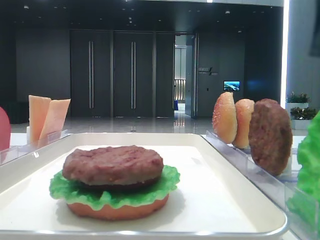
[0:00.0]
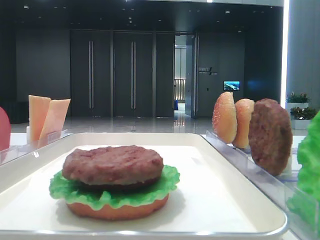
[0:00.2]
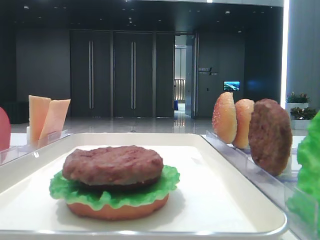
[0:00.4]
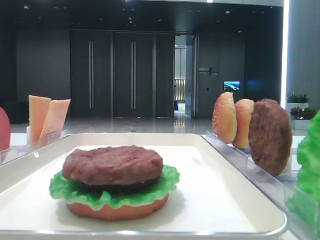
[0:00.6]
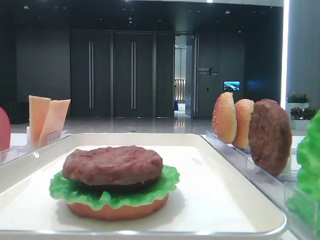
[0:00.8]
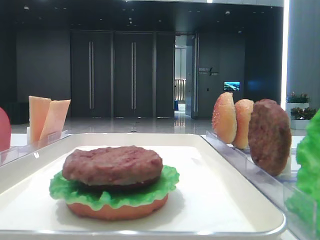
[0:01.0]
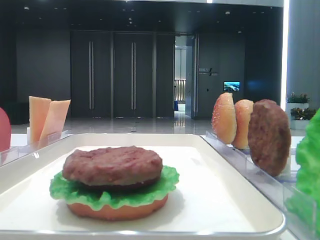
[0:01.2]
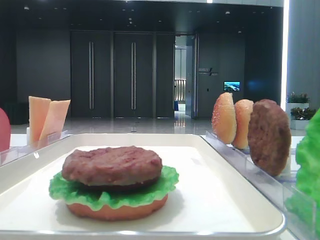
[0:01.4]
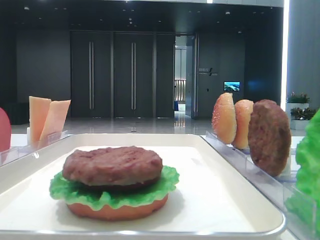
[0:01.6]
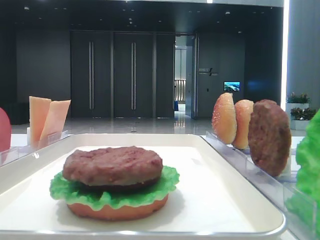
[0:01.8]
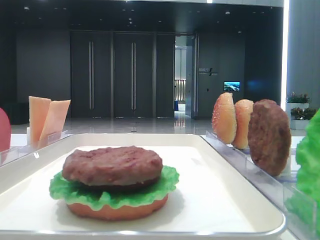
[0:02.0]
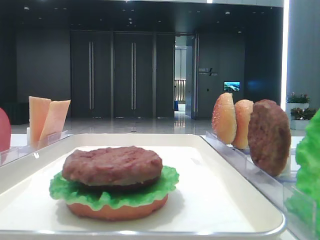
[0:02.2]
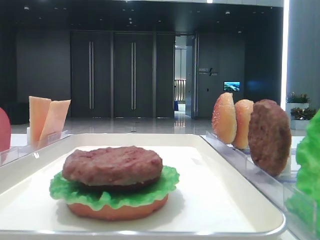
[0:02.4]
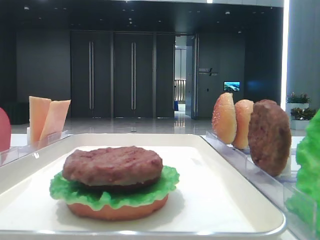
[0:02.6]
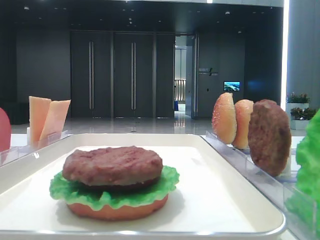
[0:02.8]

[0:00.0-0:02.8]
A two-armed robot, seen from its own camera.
0:00.0 to 0:01.4: The right gripper heads backward, covering about 20 cm.

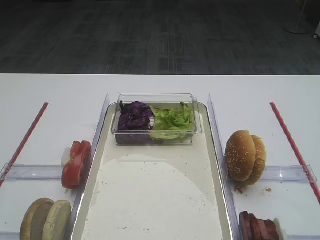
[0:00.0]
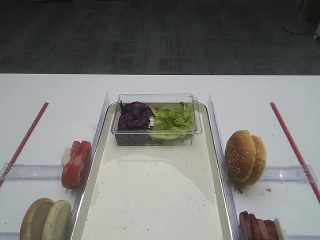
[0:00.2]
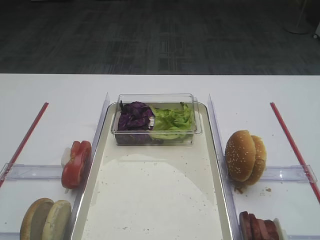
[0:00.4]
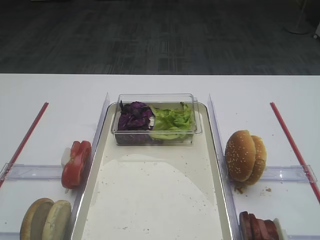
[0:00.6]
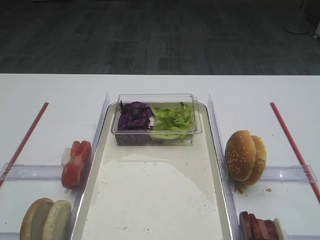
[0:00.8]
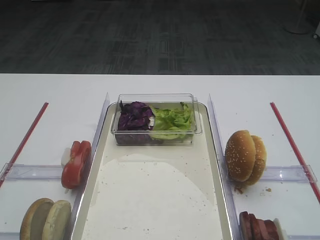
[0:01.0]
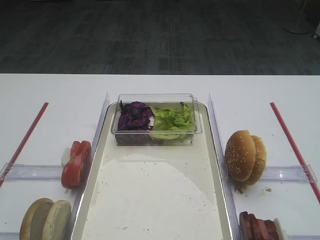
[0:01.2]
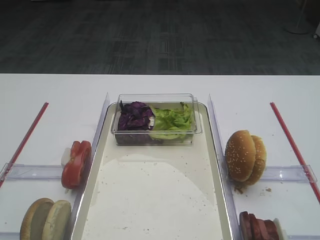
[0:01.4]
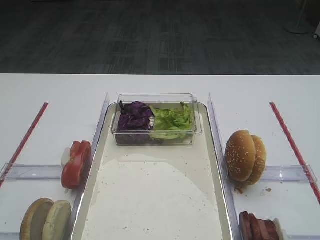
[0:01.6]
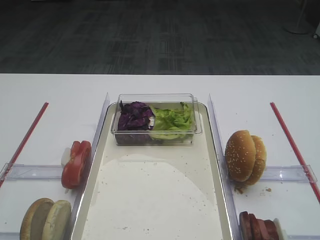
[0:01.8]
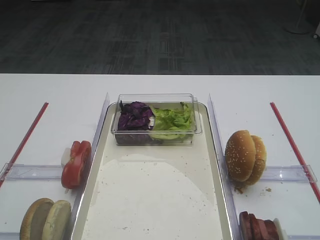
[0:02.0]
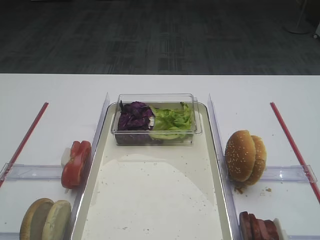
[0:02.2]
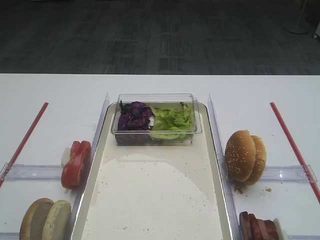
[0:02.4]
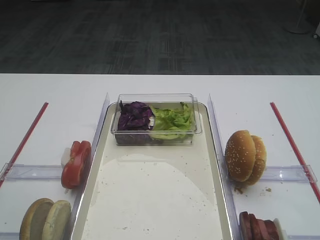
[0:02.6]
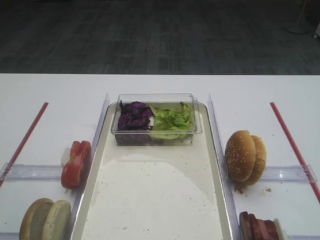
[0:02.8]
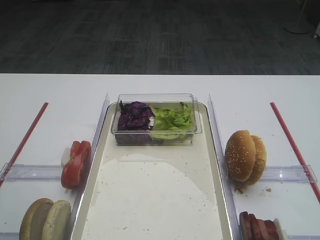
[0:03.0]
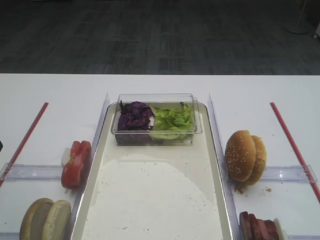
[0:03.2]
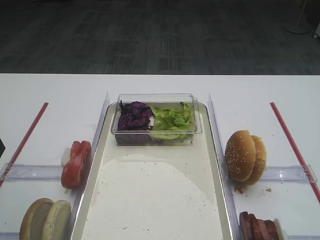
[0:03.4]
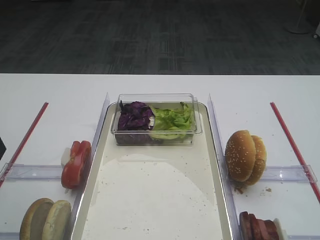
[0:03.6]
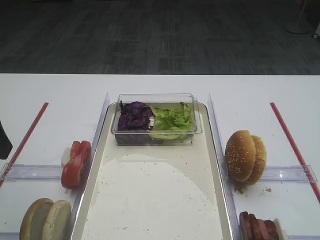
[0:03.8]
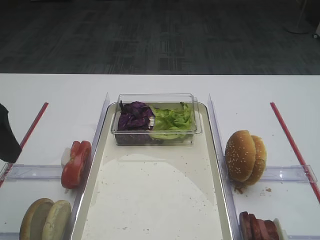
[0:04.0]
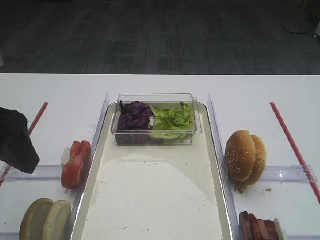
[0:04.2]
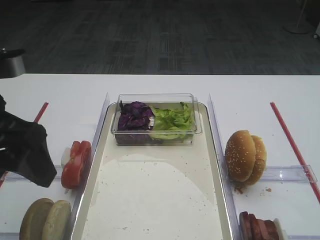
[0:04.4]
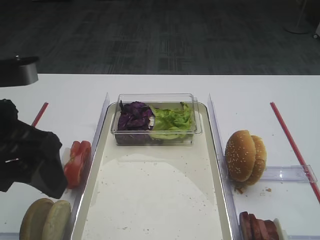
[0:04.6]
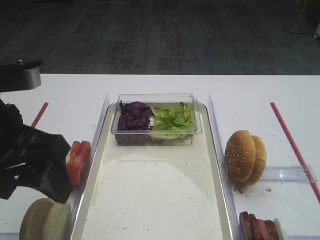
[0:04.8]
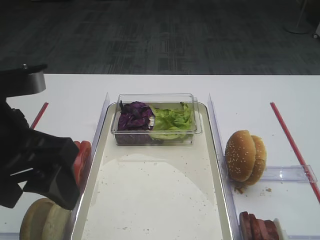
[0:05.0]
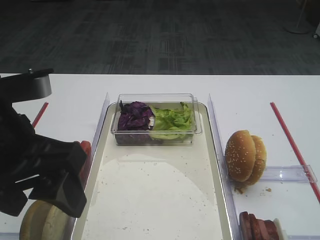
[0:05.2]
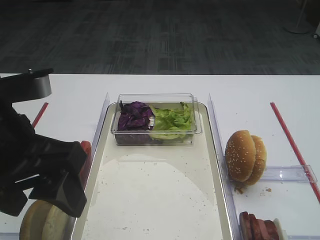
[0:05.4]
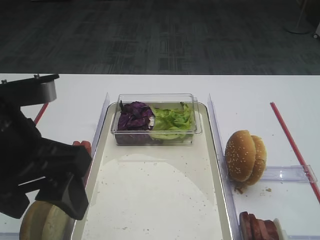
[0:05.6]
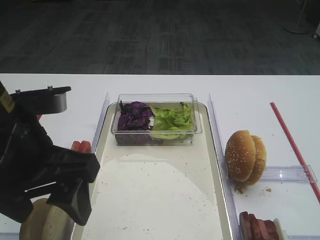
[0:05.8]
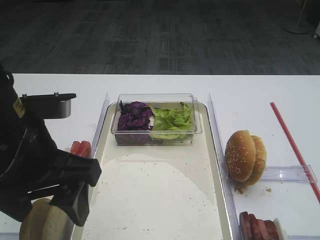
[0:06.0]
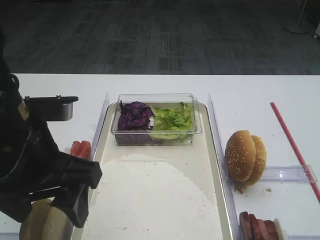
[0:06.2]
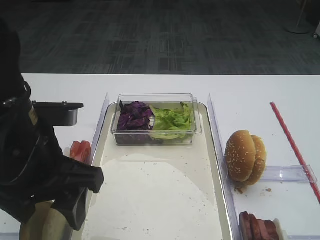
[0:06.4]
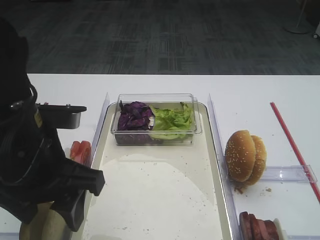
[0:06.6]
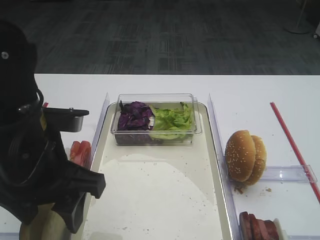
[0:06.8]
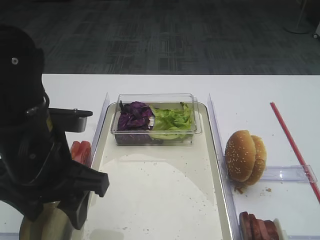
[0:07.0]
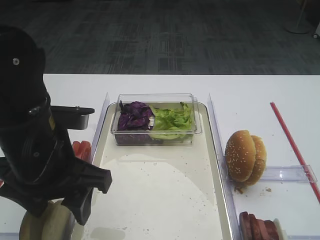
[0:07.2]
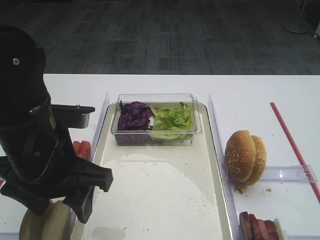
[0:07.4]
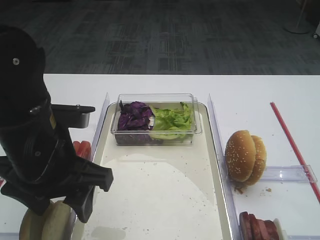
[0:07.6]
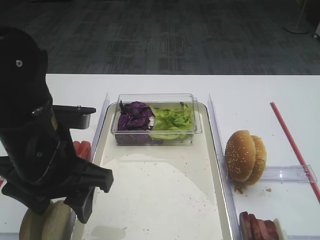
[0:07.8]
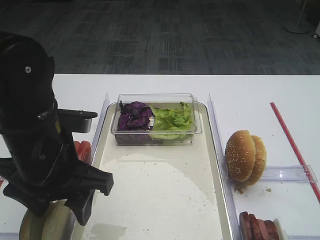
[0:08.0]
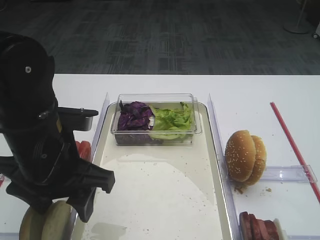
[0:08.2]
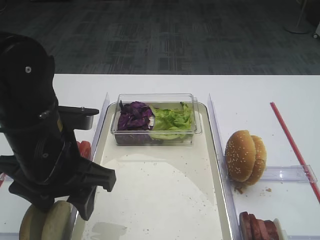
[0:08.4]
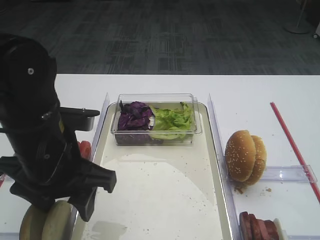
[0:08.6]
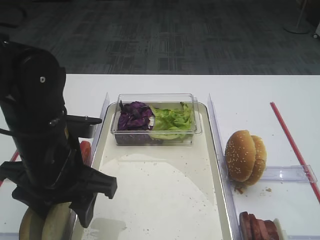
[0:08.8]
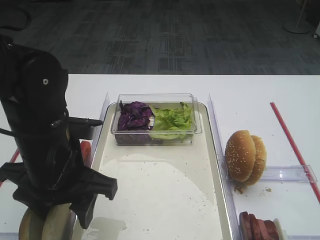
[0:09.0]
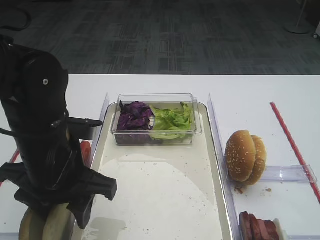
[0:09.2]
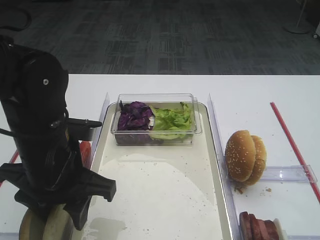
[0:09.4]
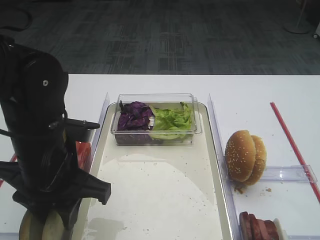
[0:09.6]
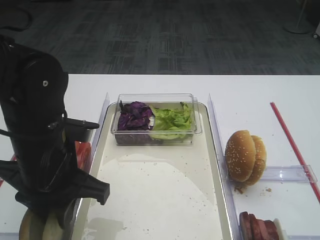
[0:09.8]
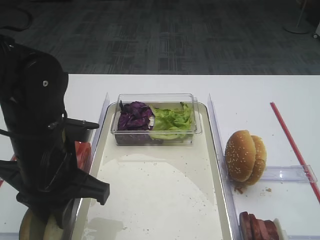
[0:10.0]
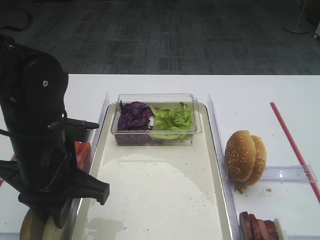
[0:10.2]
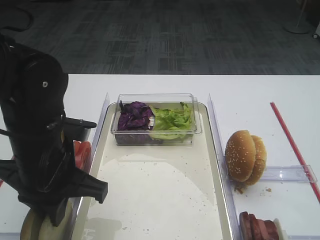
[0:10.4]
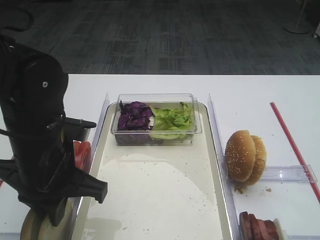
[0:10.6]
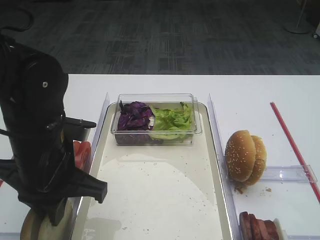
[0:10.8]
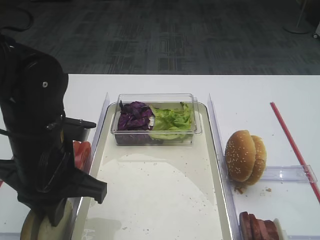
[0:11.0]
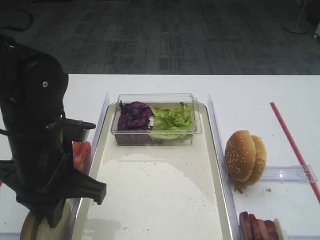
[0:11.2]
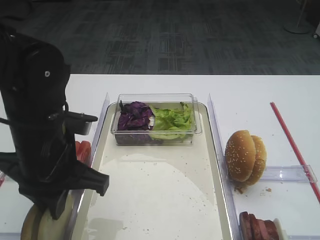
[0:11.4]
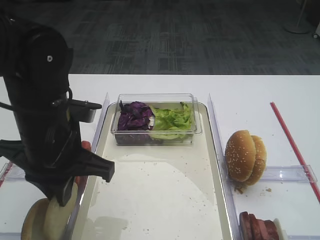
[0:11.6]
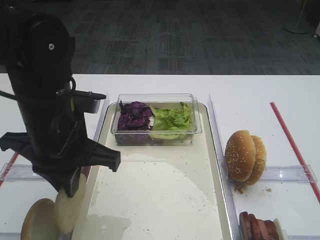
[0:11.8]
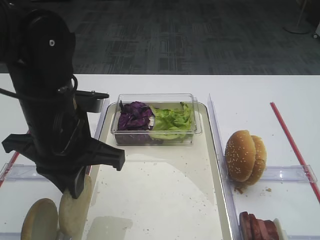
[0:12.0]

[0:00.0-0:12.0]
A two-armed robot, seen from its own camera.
Step, 0:00.0 to 0:11.8: Pick up the bread slice with the left gripper.
0:03.0 to 0:04.4: The left gripper shifts approximately 5 cm to the right.
0:04.4 to 0:06.0: The left gripper travels to the right by roughly 5 cm.
0:06.0 to 0:07.6: The grippers move only a little.
0:07.6 to 0:09.0: The grippers move only a little.
0:09.0 to 0:10.4: The left gripper closes its fingers.
0:10.4 to 0:12.0: The grippers stay close to where they were, moving slightly.

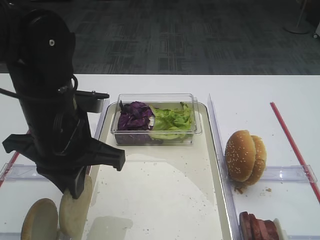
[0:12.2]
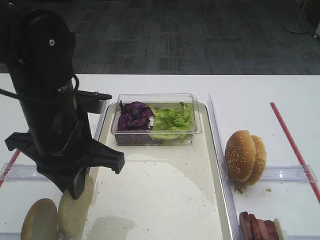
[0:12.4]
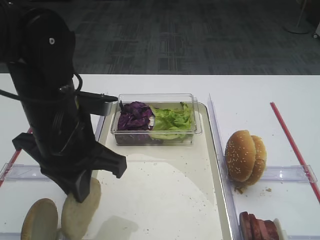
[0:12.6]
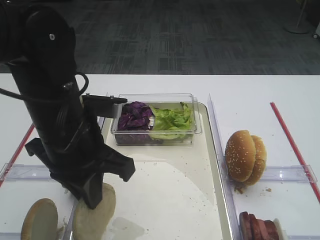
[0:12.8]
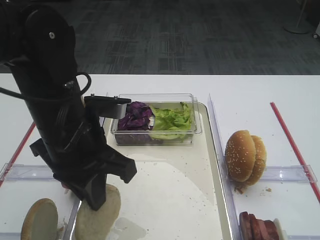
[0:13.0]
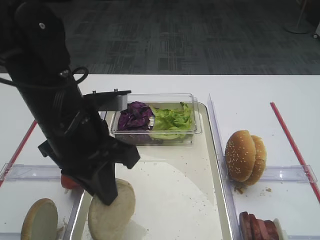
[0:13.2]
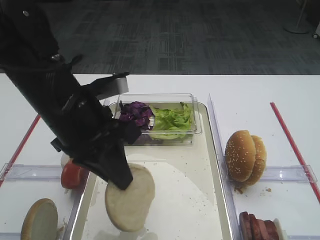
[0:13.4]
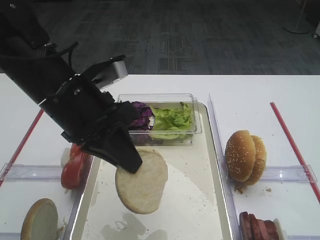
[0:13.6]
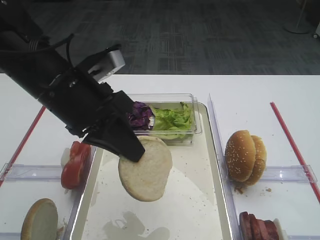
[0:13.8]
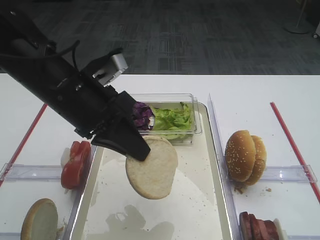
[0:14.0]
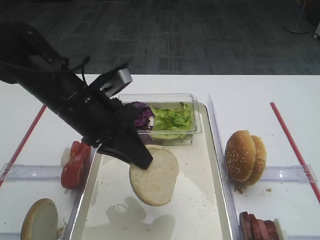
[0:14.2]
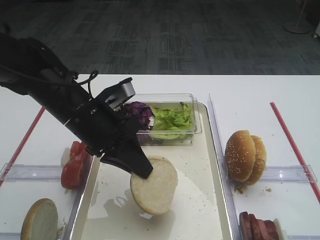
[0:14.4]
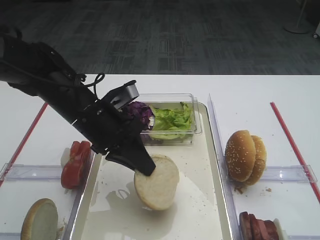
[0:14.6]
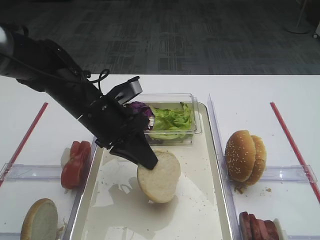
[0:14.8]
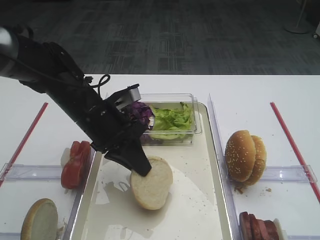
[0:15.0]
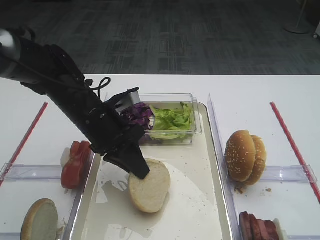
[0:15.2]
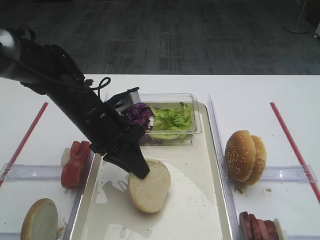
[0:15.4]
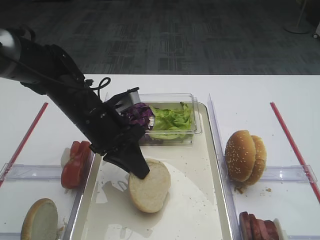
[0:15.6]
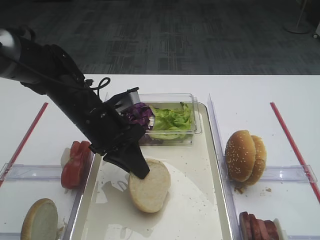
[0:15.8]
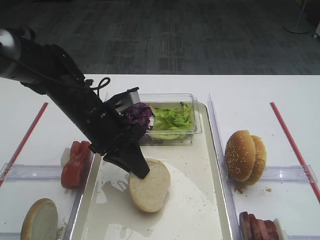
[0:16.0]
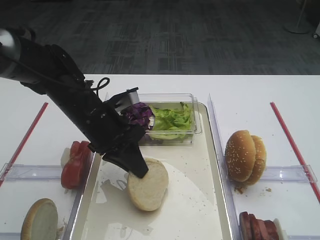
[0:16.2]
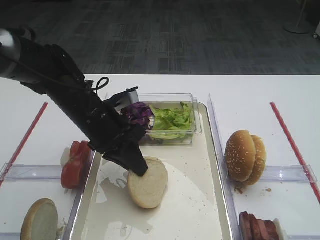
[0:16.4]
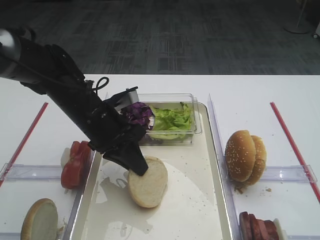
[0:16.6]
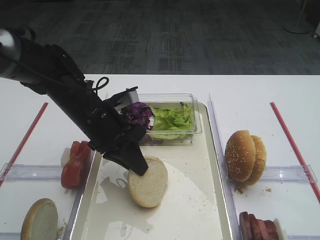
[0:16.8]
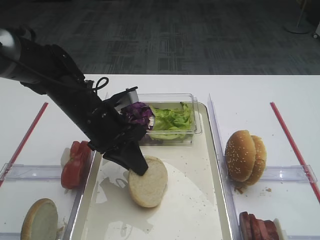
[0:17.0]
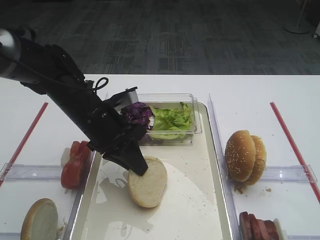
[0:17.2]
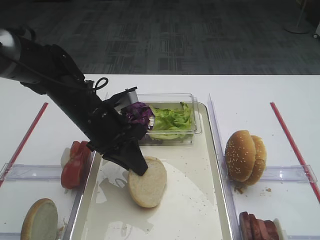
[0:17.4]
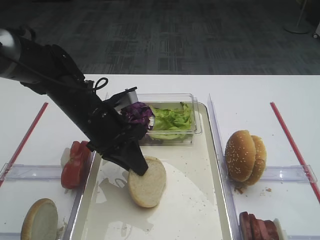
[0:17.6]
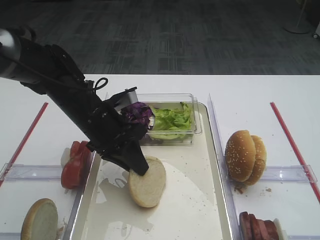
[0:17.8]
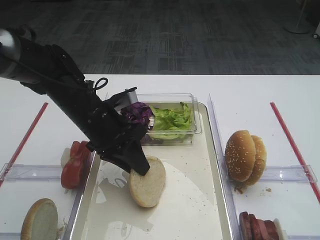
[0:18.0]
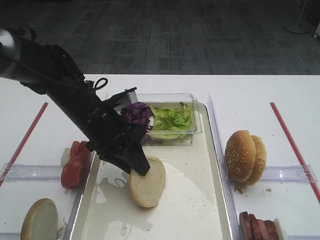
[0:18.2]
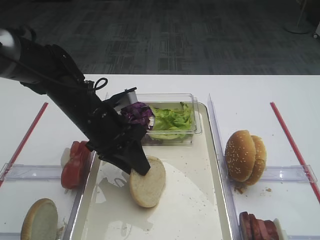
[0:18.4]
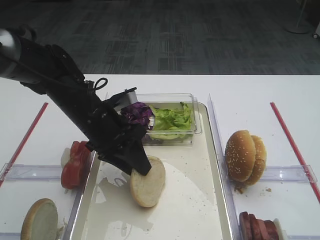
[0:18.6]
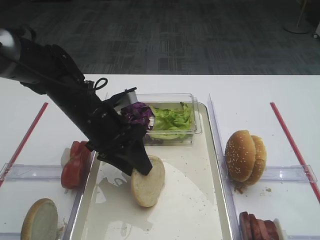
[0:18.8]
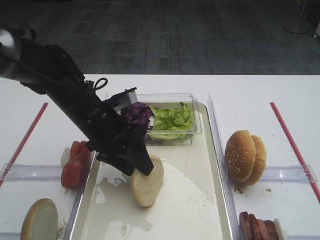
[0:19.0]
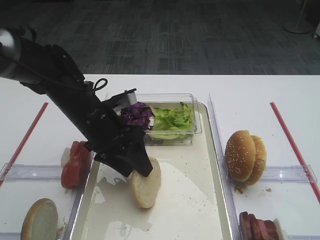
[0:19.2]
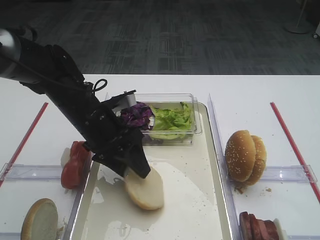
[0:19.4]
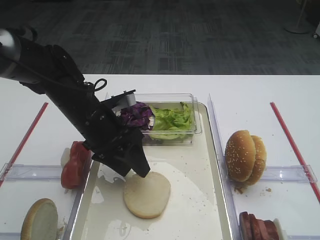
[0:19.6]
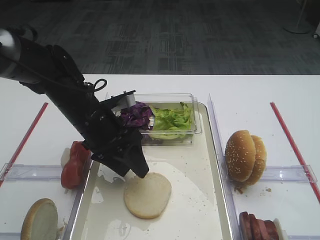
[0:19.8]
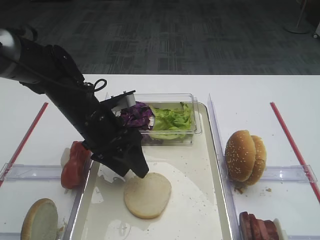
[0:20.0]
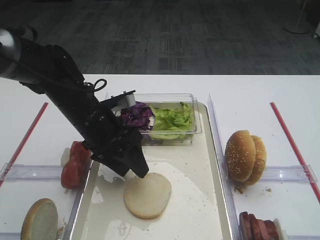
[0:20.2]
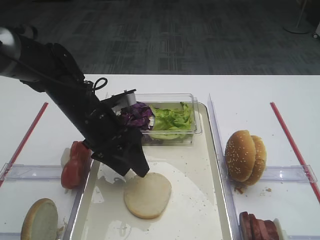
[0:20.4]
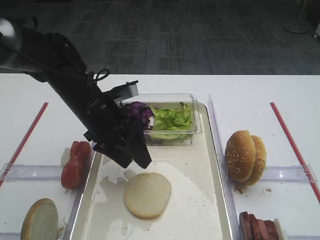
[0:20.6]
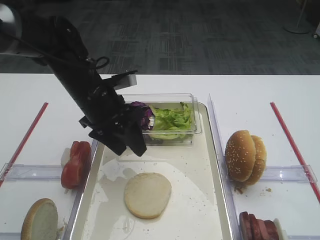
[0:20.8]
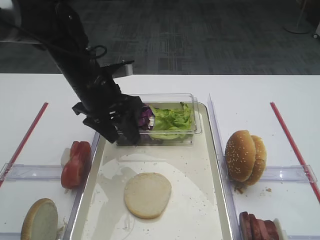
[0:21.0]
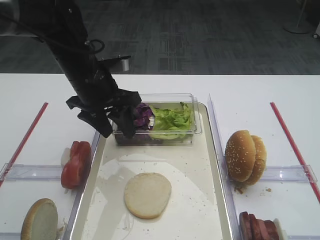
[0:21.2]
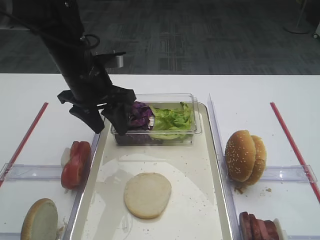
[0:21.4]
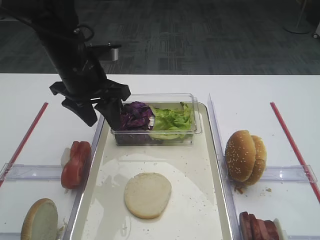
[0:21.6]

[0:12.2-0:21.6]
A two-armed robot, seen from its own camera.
Step, 0:12.2 to 0:21.0: Place the bread slice on the tray with the left gripper.
0:13.8 to 0:15.4: The left gripper shifts roughly 10 cm downward and forward.
0:15.4 to 0:17.0: Both grippers stay put.
0:17.0 to 0:18.4: The left gripper opens.
0:18.4 to 0:20.0: Both grippers stay put.
0:20.0 to 0:21.6: The left gripper is displaced upward by some 10 cm.
